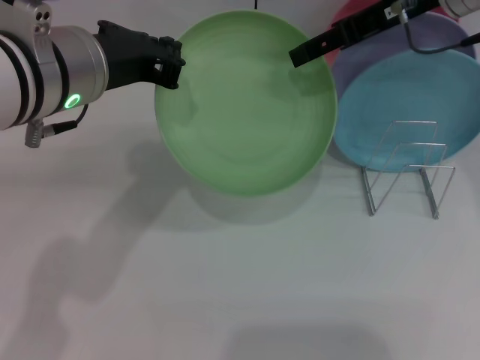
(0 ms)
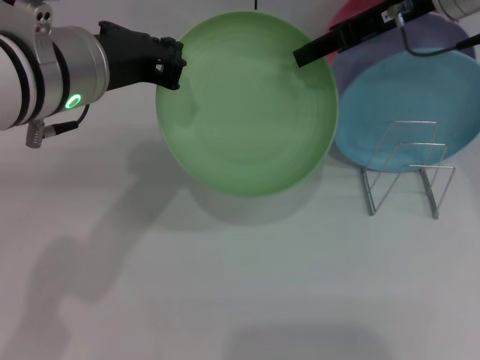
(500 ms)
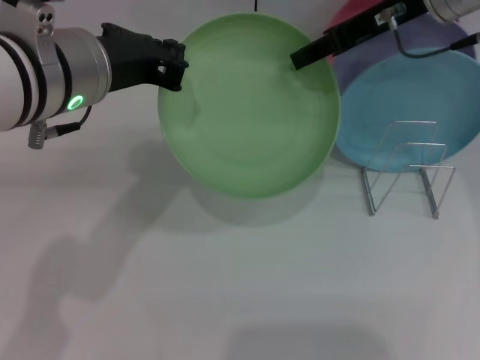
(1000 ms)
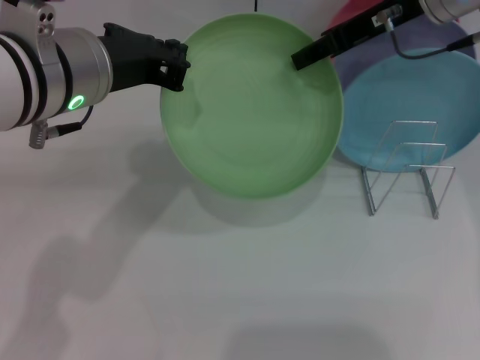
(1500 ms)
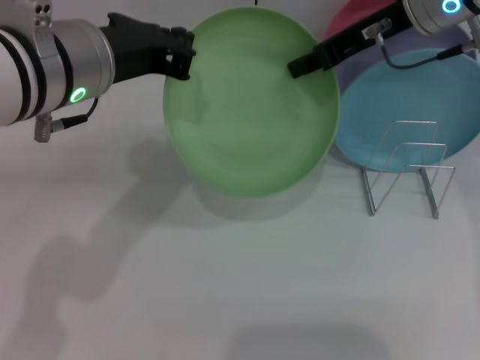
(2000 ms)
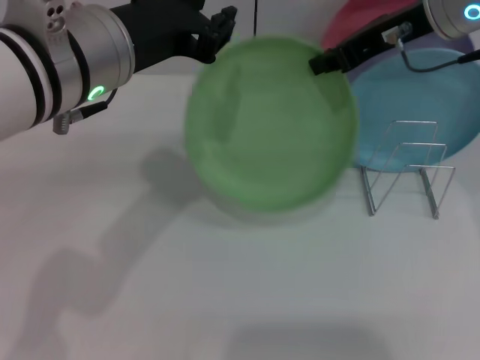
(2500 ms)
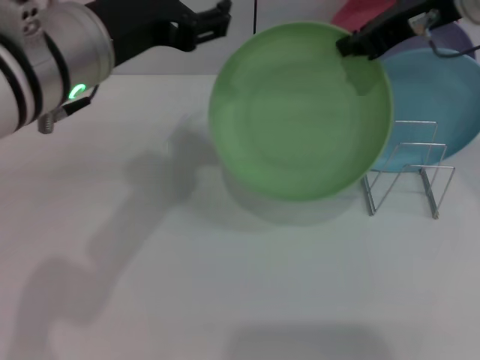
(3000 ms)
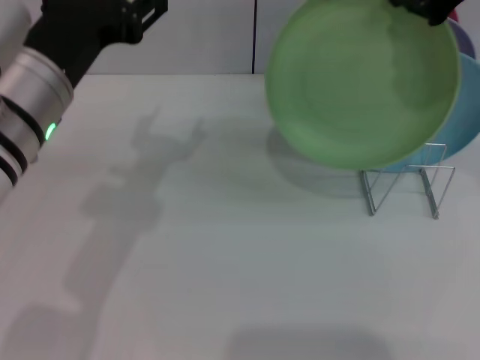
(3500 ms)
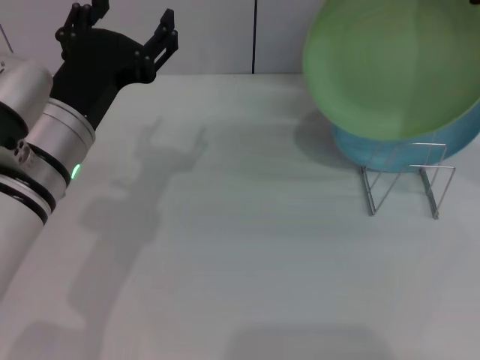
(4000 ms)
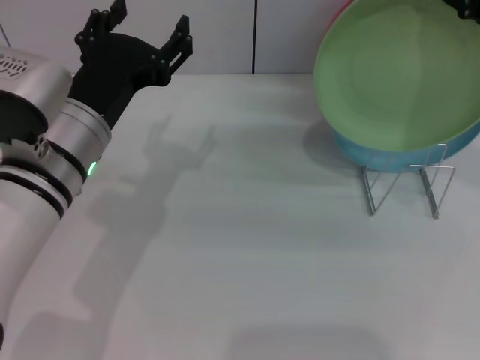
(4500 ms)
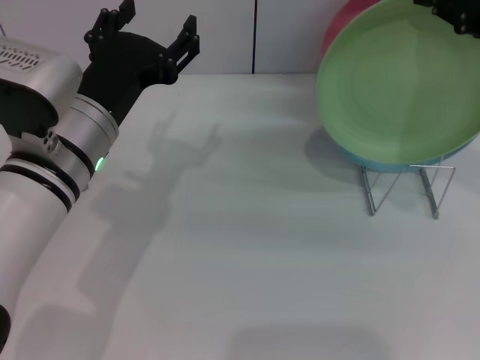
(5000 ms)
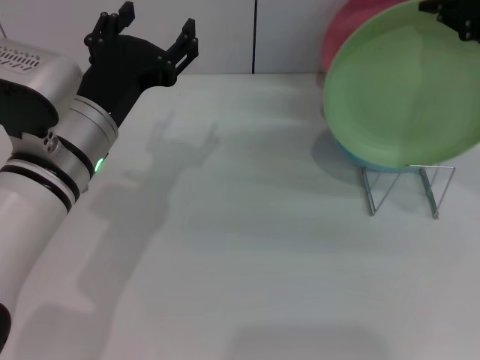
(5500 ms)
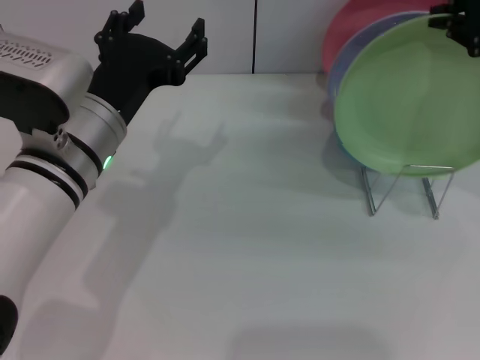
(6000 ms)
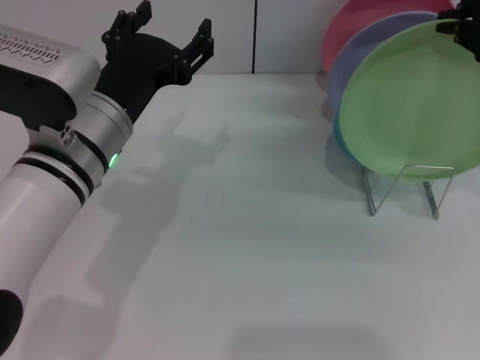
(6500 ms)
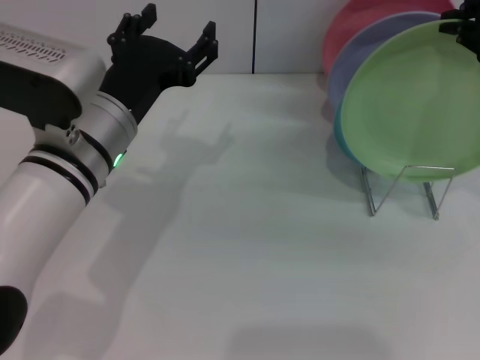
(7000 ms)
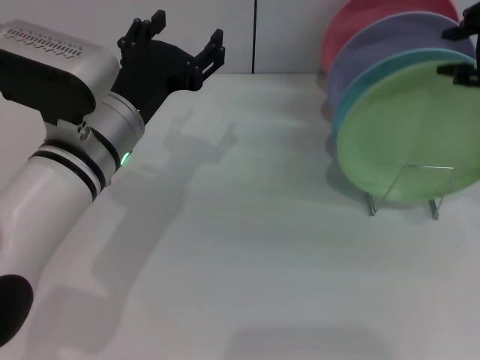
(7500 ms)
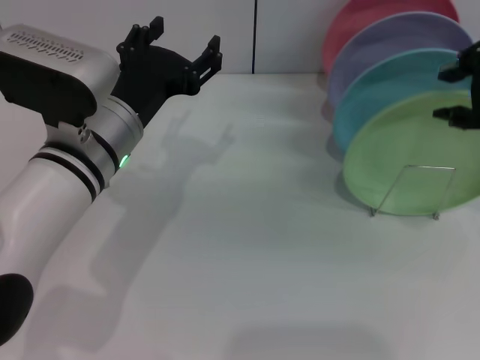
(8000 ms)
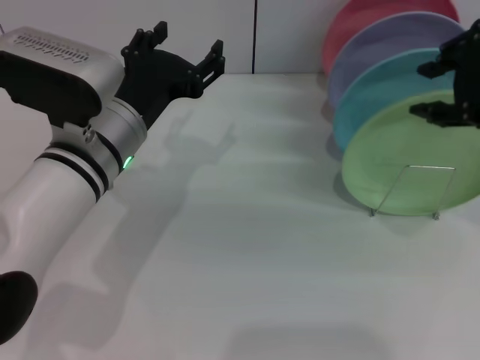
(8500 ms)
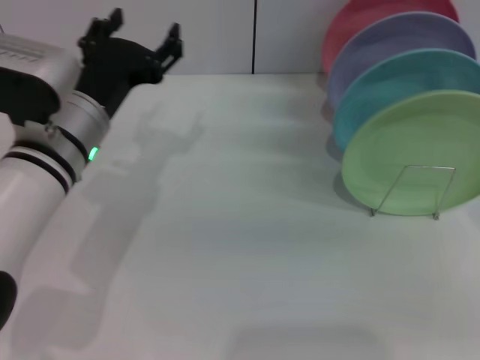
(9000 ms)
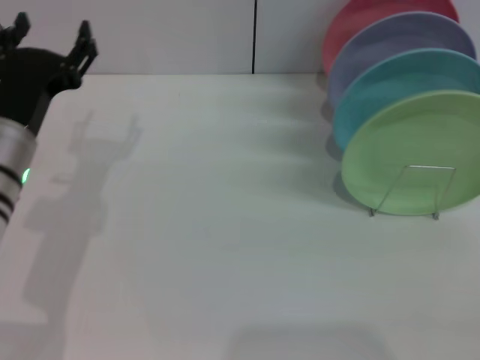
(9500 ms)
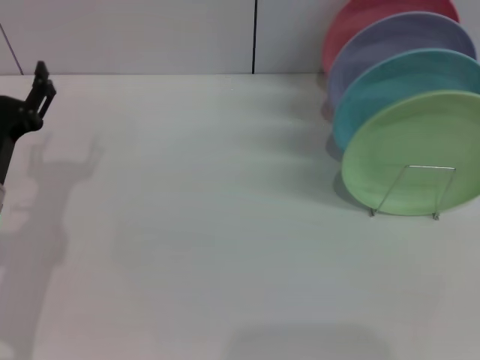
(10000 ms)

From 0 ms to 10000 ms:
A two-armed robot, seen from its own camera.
Task of the whole recording: Grip the plate with one hand, pass it to the other, then set it on the shelf.
Step, from 0 ms to 2500 ms: Pass the plate from the left gripper to the right gripper.
Step, from 3000 ms to 8000 ms: Place the plate on the shelf with the right gripper.
From 0 ms to 2000 ms: The right gripper closes its fingers.
From 2000 ms to 4000 ms: The left gripper moves downward, roughly 10 cm, and opens its fingers; the right gripper moves upward, backward and to the right, some 10 cm.
From 4000 ms to 6000 ms: The grippers make only small movements.
From 6000 ms to 8000 ms: The right gripper opens.
From 8000 ms to 10000 ms: The right gripper is displaced downward, backward and to the right by approximately 35 cm, while the left gripper travels to the left and downward by roughly 15 cm.
